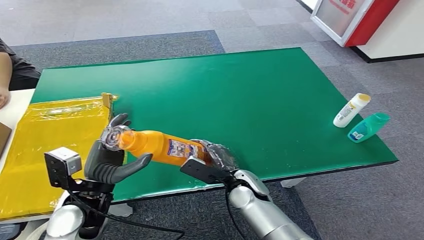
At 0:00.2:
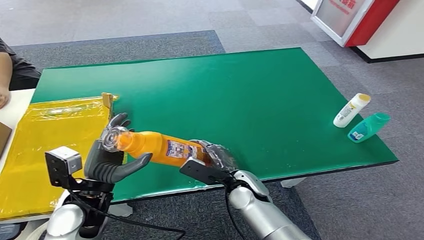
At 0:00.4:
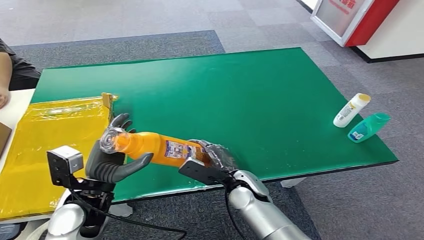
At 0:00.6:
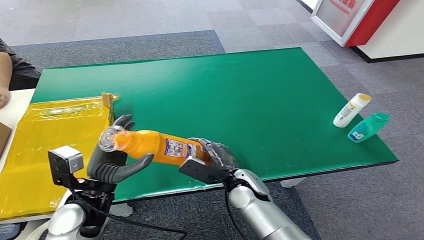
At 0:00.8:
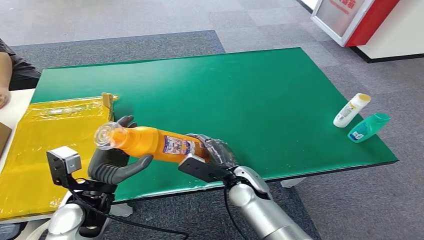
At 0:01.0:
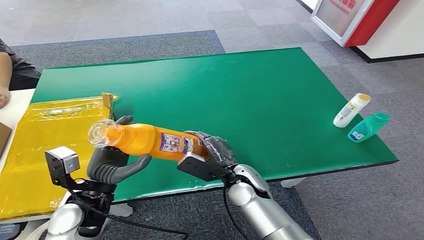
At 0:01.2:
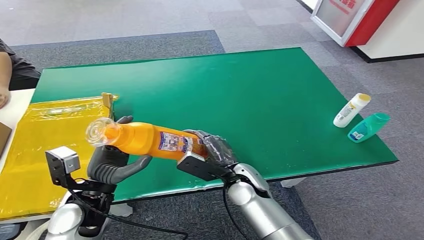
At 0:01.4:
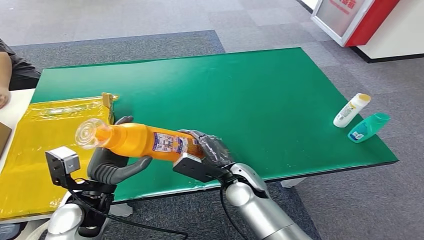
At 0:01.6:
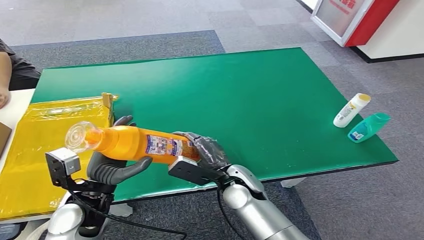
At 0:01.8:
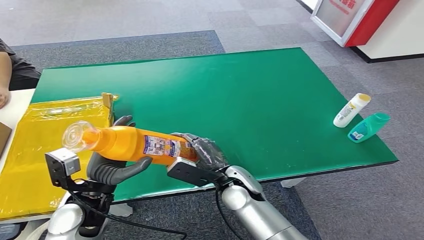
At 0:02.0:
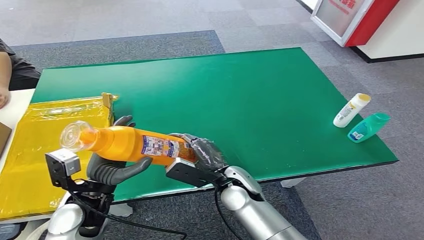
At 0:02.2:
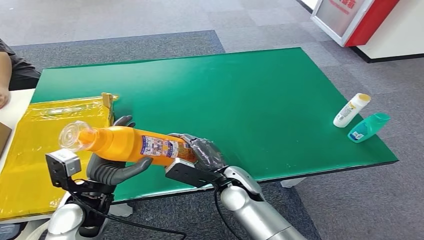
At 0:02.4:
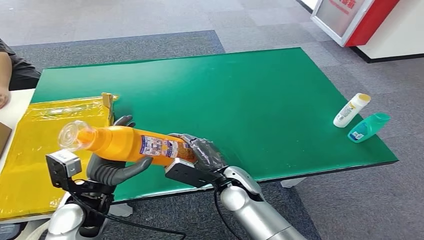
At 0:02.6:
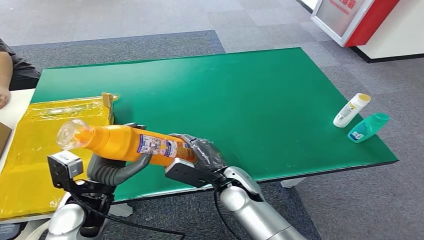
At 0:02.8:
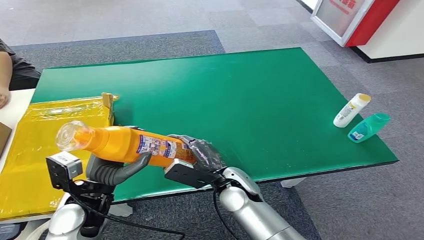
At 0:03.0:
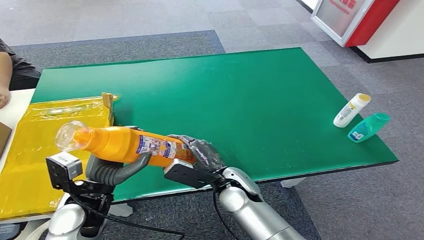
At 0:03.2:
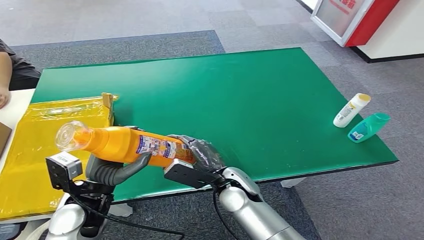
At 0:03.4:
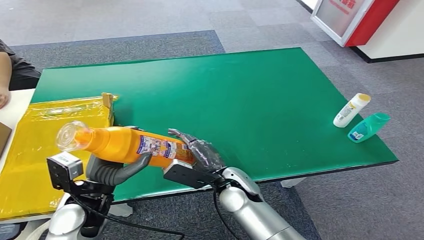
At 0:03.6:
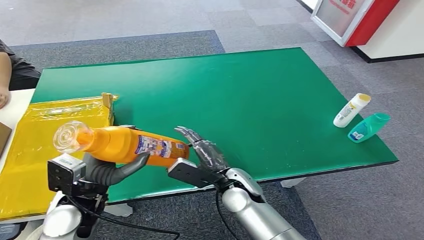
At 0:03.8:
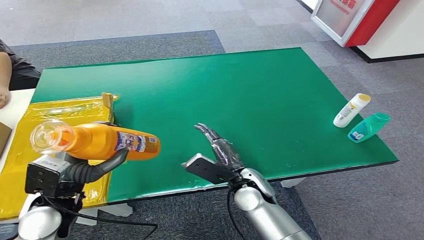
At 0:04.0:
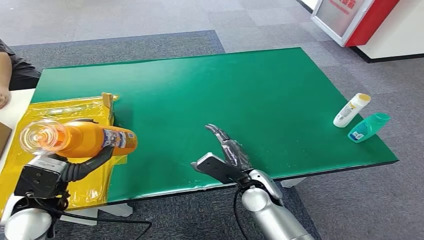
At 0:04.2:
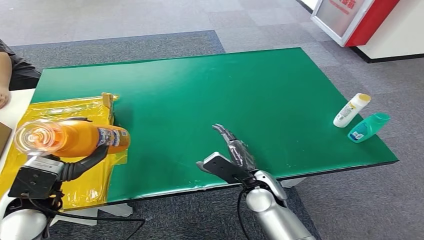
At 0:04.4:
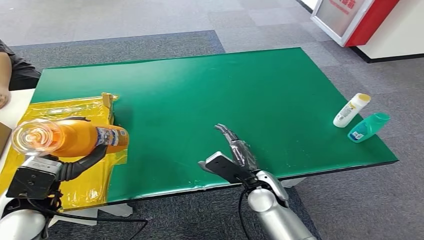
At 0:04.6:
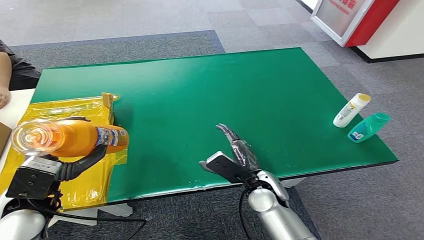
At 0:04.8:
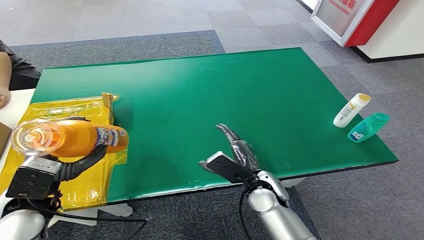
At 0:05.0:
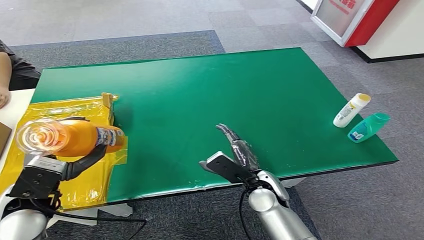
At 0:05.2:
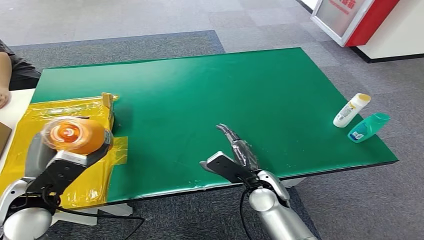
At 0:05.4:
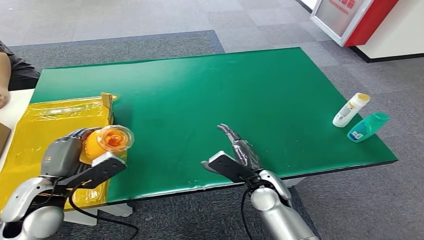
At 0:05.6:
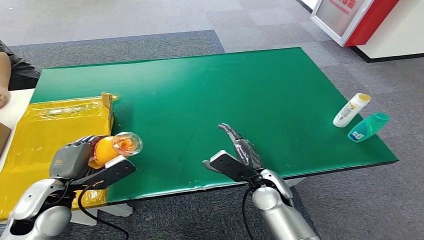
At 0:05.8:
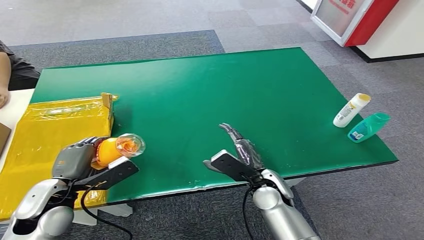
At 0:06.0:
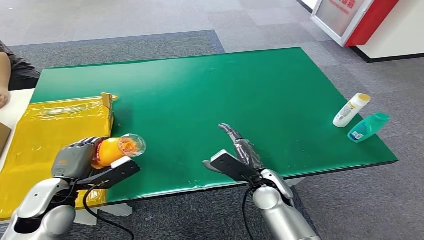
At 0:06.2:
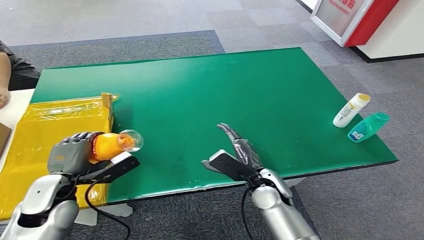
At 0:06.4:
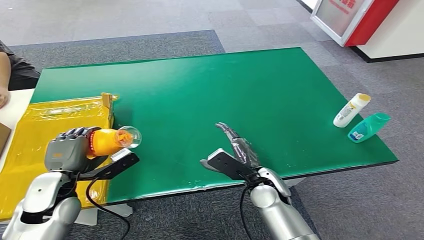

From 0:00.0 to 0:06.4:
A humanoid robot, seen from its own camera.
Step, from 0:00.0 to 0:06.4: Turn the bottle to the front side.
From 0:00.0 to 0:01.6: The right hand ends up some 5 cm from where it was.
From 0:01.6 to 0:03.2: There are only small adjustments of the hands.
From 0:03.2 to 0:04.8: The right hand moves to the right, approximately 5 cm; the left hand shifts about 10 cm to the left.
From 0:04.8 to 0:06.4: The left hand moves some 5 cm.
